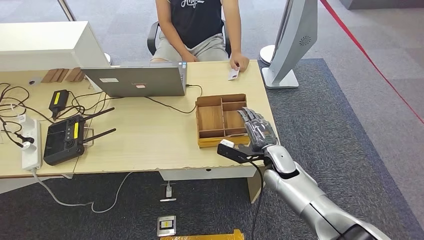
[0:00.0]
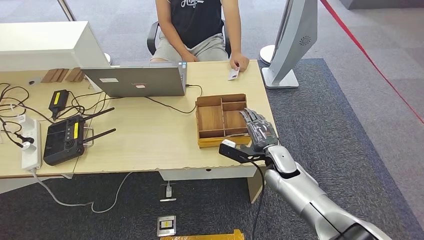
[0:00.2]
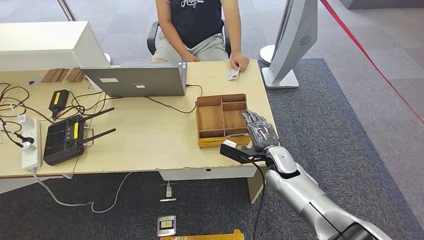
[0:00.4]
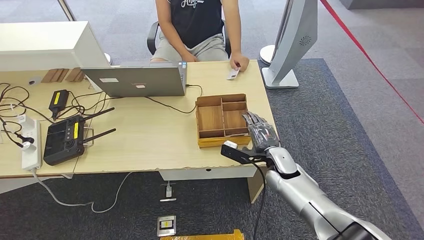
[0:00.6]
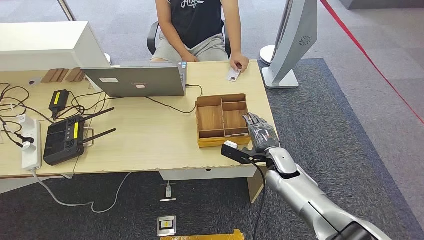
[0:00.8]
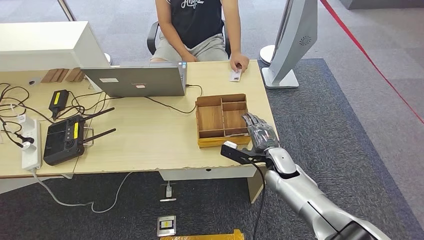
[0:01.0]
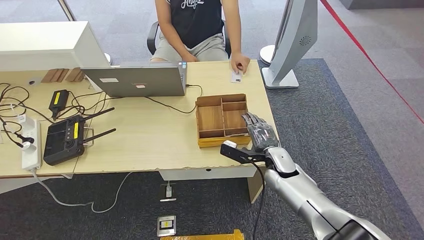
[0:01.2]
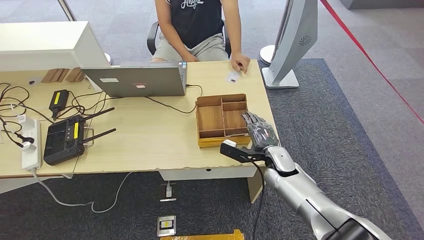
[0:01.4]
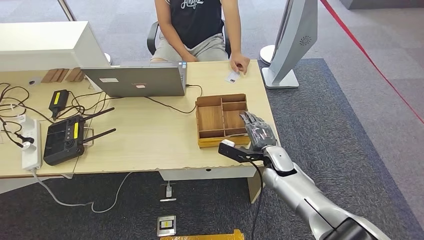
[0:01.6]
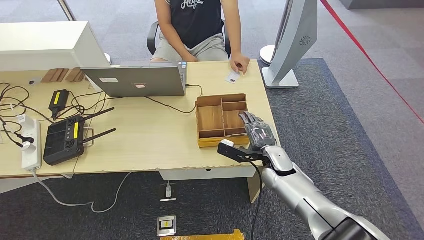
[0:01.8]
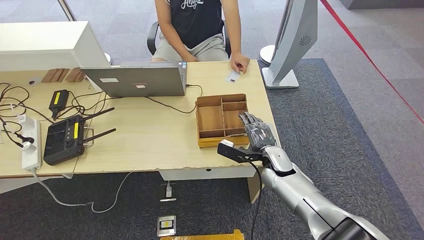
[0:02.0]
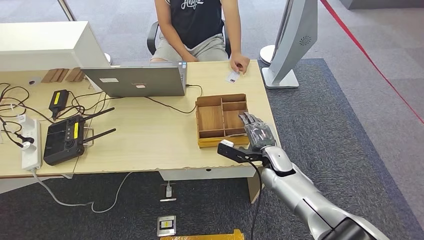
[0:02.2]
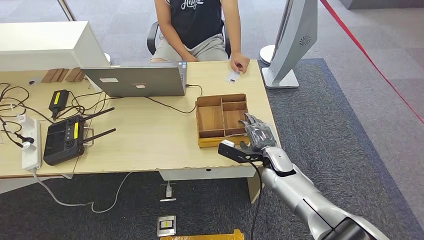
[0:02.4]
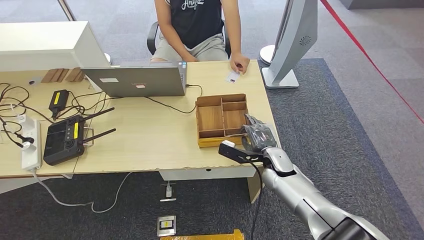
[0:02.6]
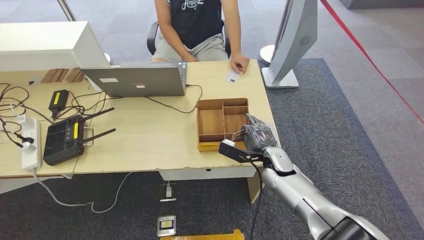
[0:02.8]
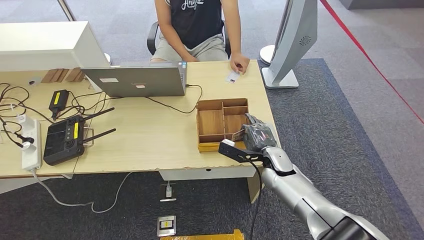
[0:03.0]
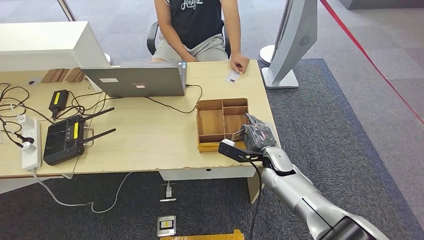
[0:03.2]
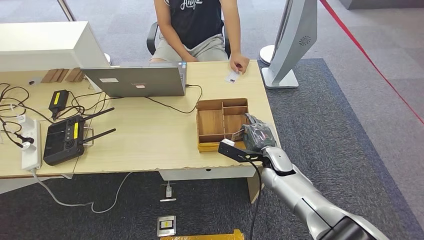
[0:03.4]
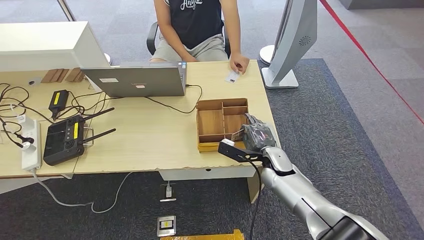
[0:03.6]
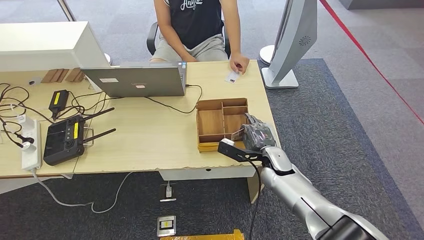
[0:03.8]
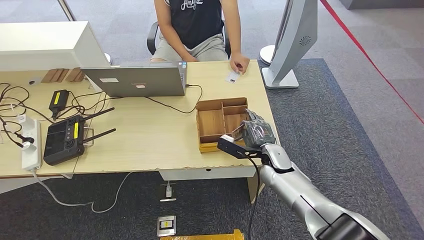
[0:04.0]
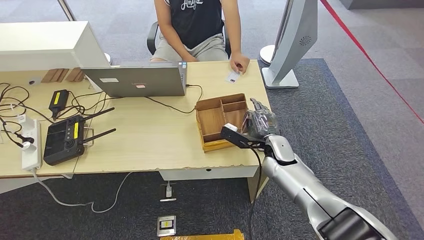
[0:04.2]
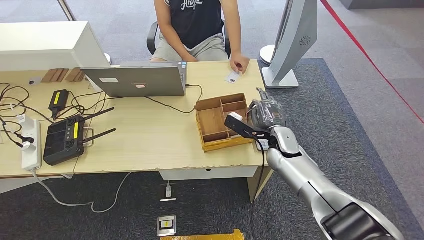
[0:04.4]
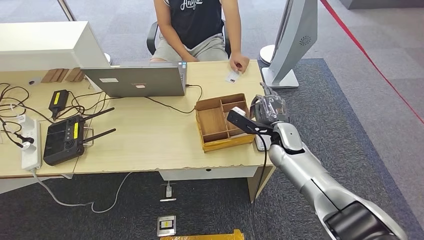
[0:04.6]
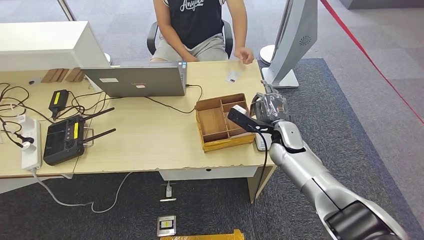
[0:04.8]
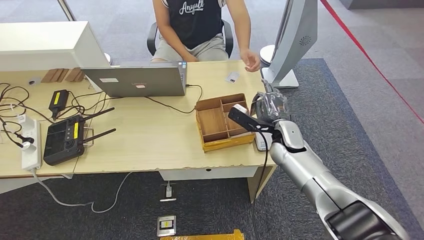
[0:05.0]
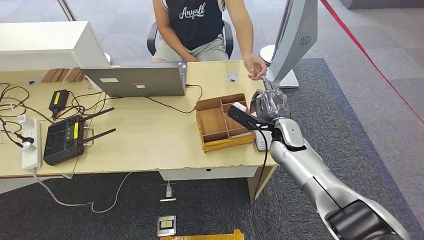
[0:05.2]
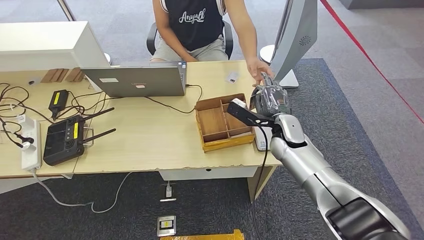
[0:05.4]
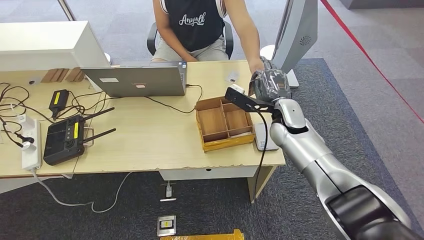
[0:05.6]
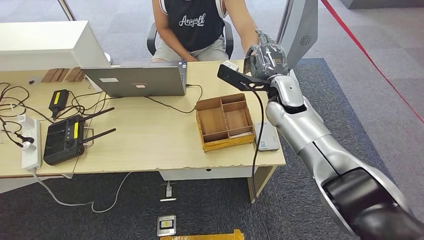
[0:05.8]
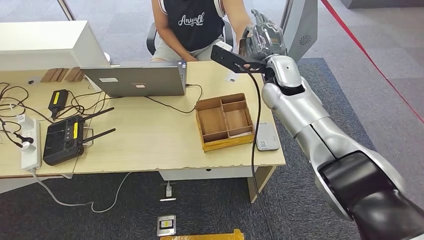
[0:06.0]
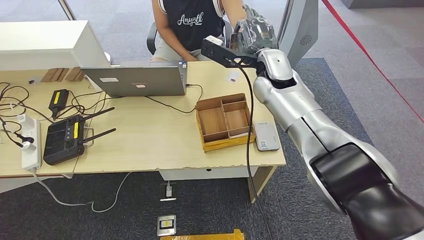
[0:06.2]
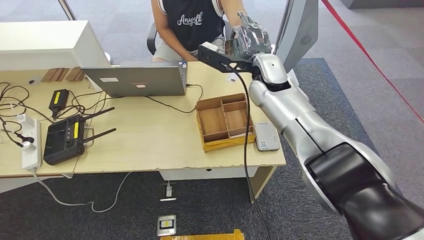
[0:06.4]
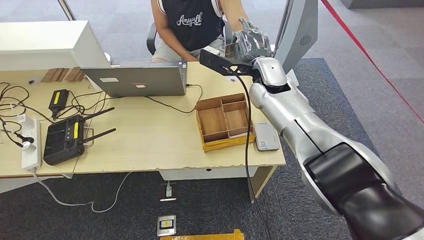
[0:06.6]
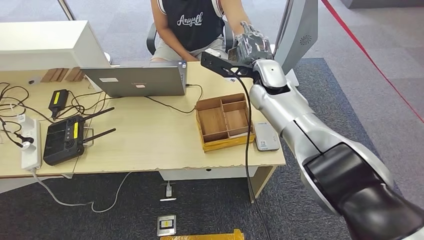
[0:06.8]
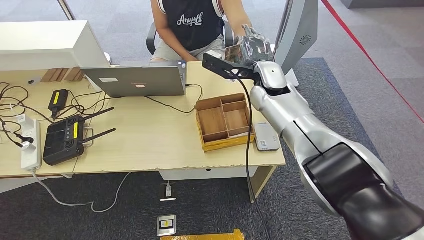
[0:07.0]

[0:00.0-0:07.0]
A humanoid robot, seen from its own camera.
Step, 0:00.0 to 0:03.0: Pick up the room key from the key card box.
Step, 0:03.4 to 0:07.0: Hand the room key to the person.
0:00.0 to 0:01.4: The hands make only small movements.
0:01.4 to 0:02.8: Both hands stay put.
0:02.8 to 0:04.2: The hands make only small movements.
0:04.2 to 0:05.6: The right hand moves upward, about 10 cm.
0:05.6 to 0:07.0: The right hand is displaced upward and to the left by approximately 10 cm.
